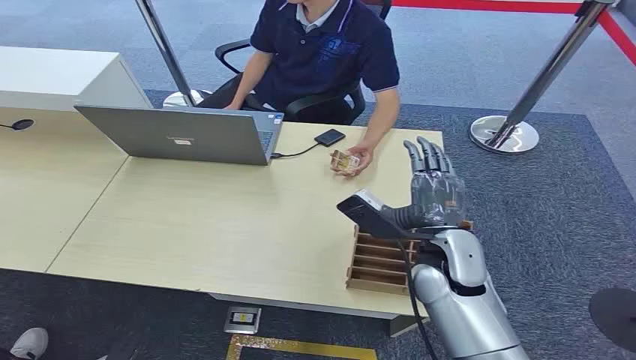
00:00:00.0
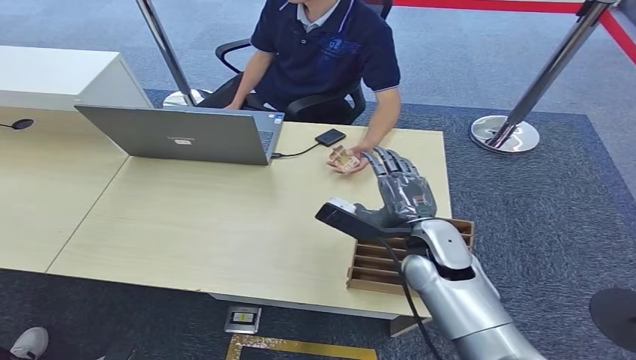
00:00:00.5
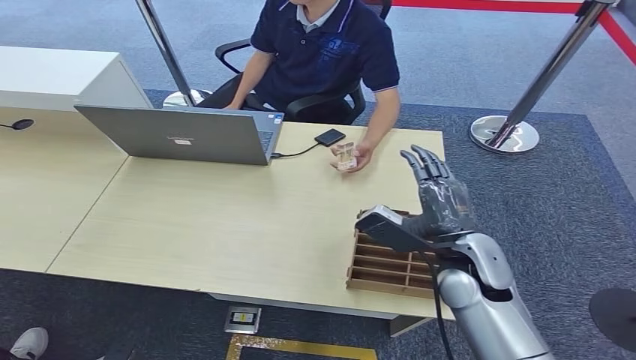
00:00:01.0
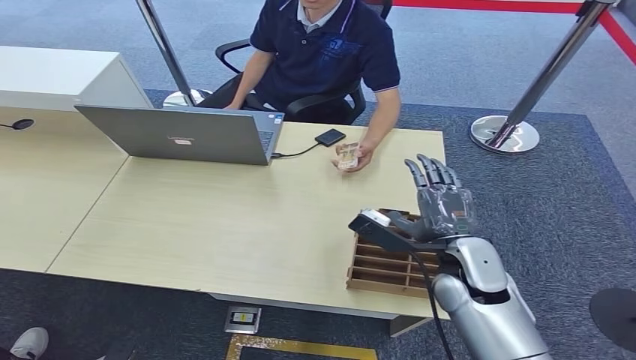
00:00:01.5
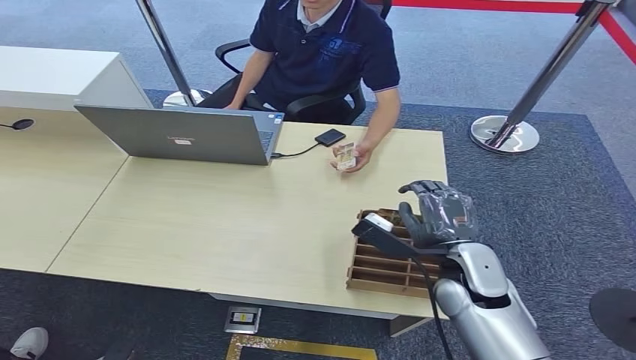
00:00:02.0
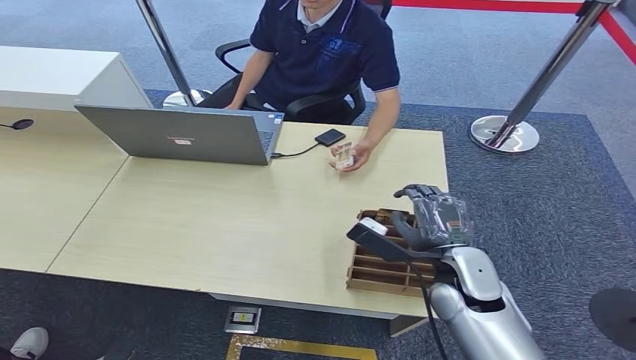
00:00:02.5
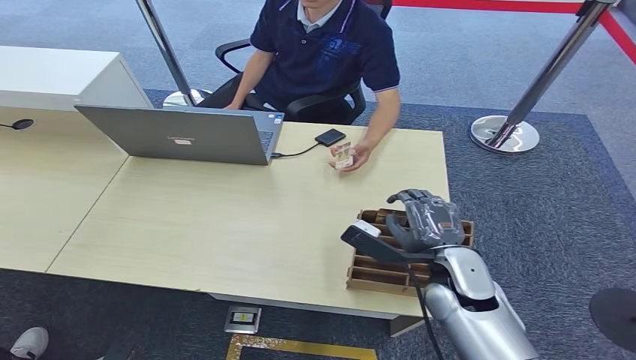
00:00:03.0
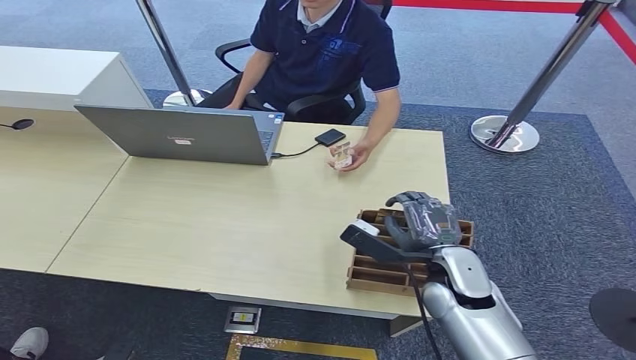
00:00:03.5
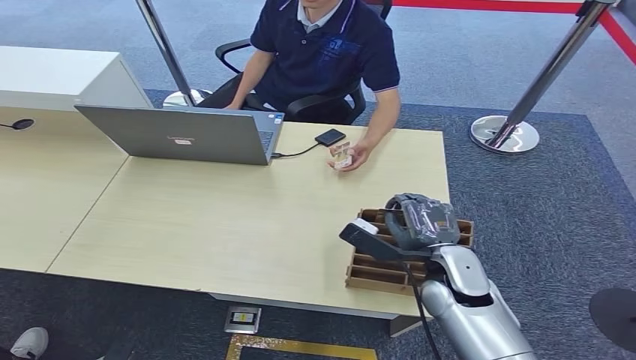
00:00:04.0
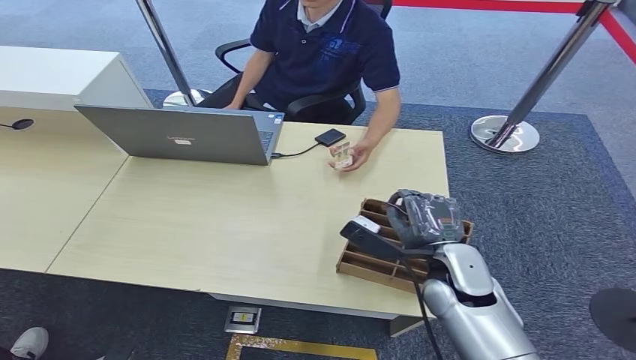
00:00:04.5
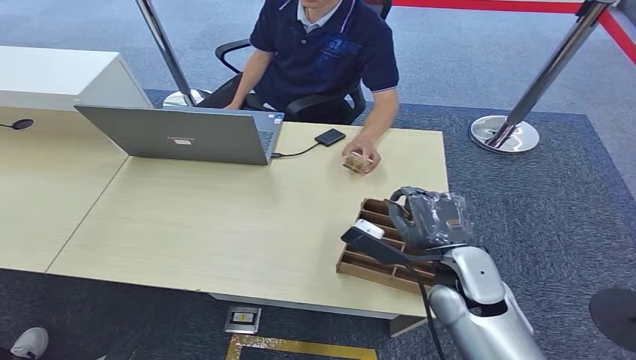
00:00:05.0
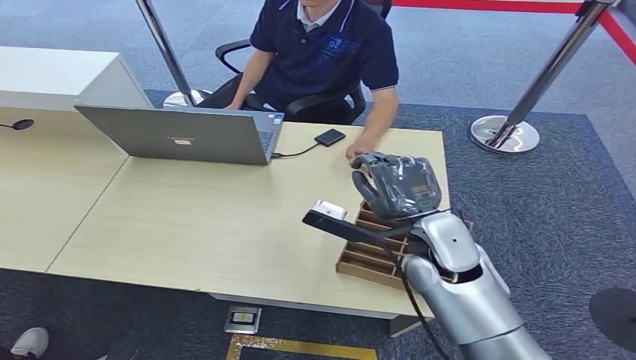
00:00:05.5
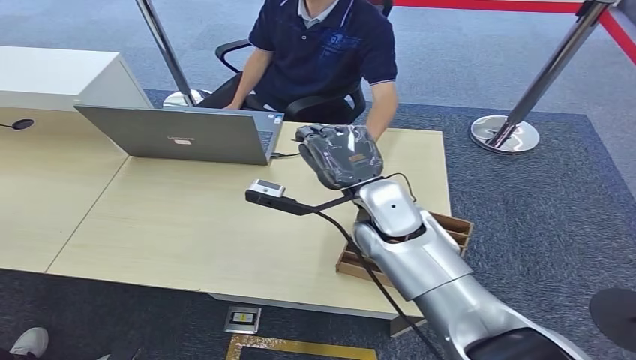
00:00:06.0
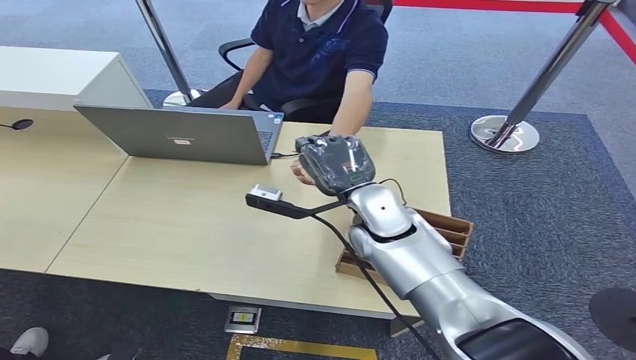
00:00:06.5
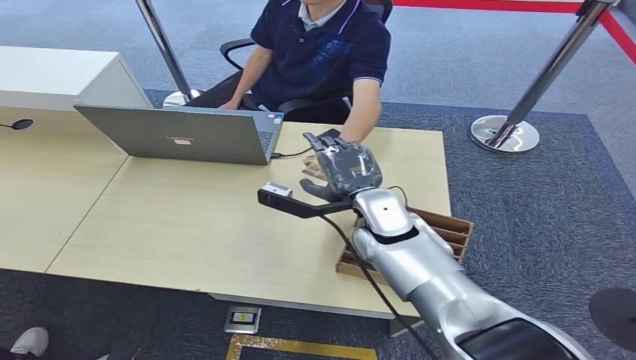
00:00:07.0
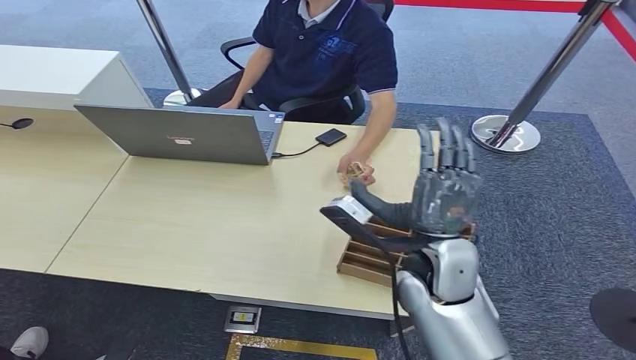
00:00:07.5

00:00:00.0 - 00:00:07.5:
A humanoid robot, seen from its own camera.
Step, 00:00:00.0 - 00:00:05.0: Pick up the key card from the card box.
Step, 00:00:05.5 - 00:00:07.5: Hand the key card to the target.
00:00:02.0 - 00:00:04.0: The hands move only a little.
00:00:04.0 - 00:00:05.5: The right hand moves upward, approximately 10 cm.
